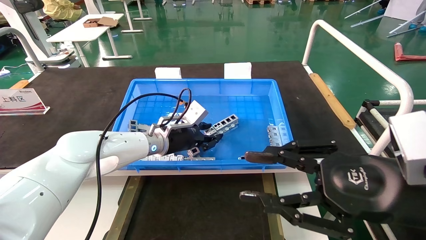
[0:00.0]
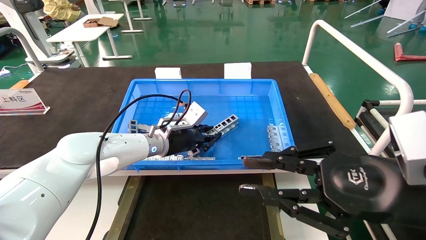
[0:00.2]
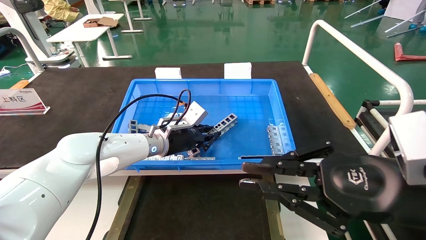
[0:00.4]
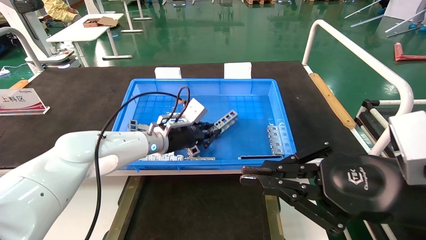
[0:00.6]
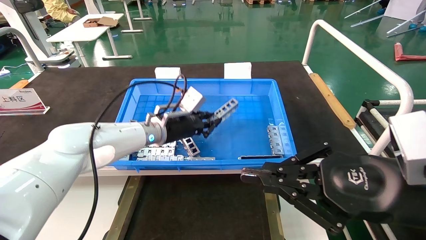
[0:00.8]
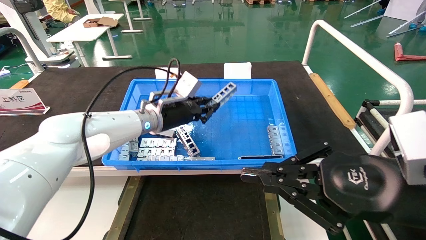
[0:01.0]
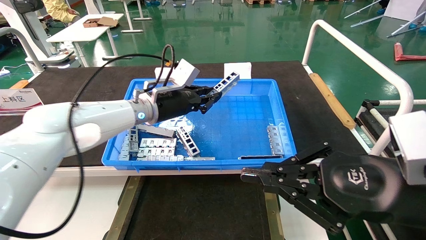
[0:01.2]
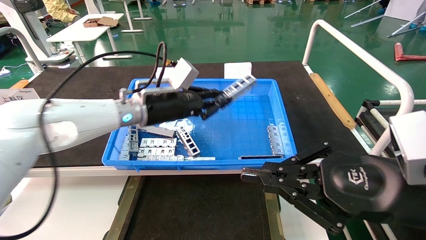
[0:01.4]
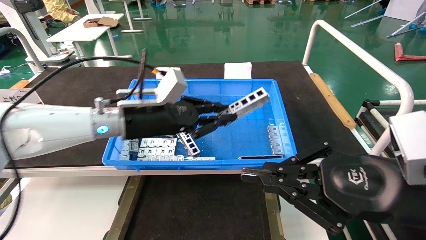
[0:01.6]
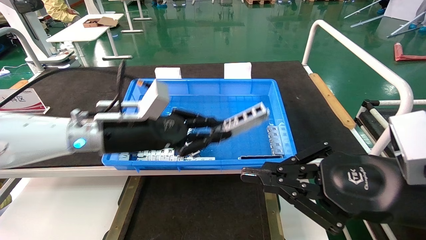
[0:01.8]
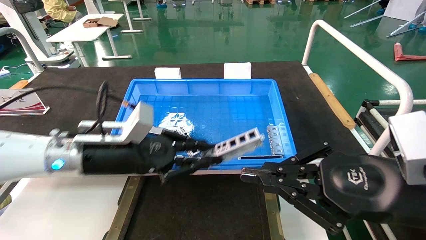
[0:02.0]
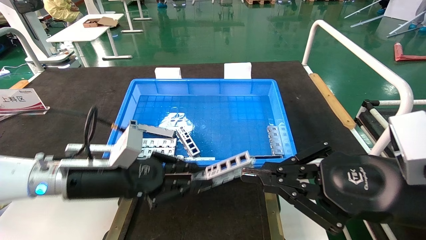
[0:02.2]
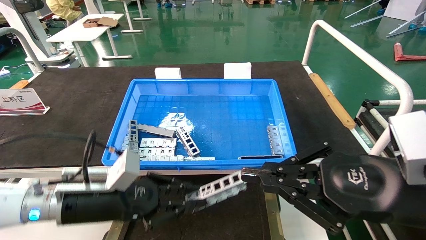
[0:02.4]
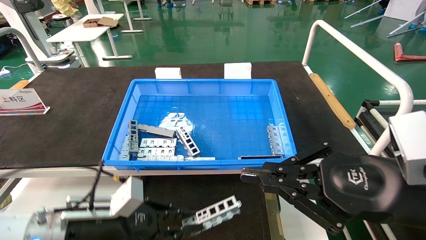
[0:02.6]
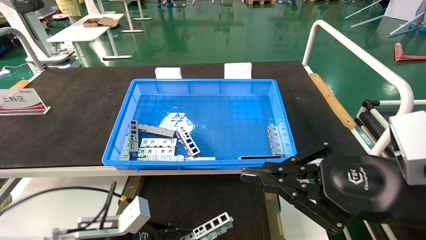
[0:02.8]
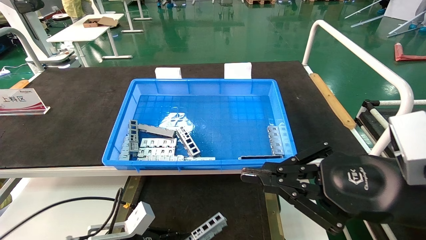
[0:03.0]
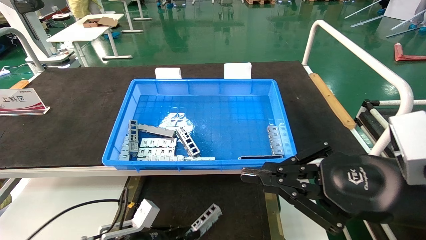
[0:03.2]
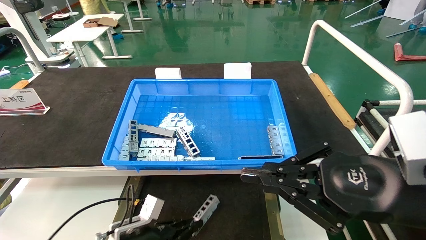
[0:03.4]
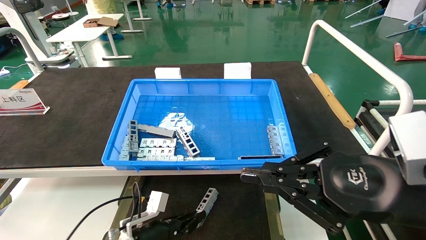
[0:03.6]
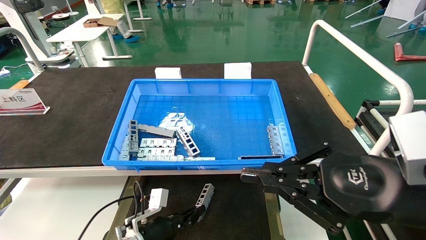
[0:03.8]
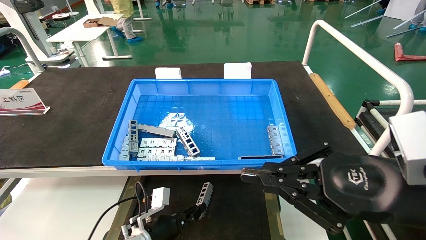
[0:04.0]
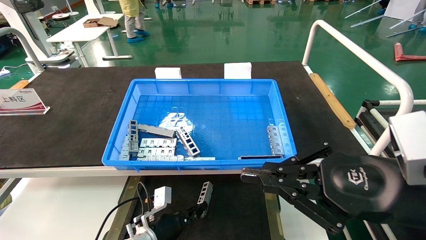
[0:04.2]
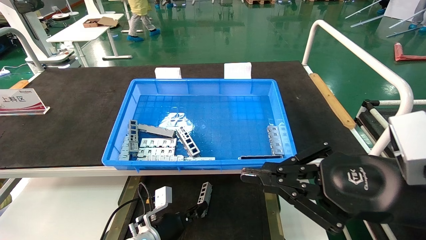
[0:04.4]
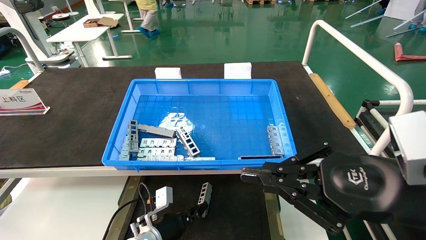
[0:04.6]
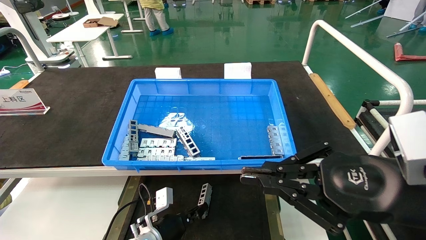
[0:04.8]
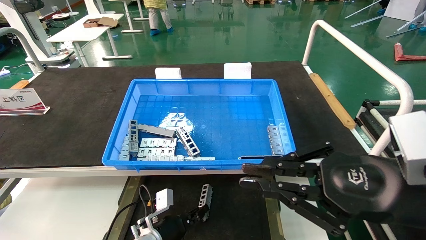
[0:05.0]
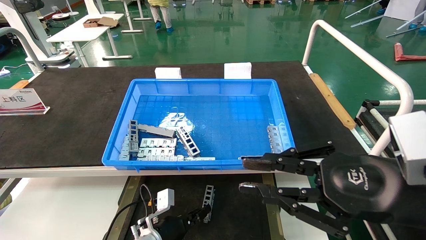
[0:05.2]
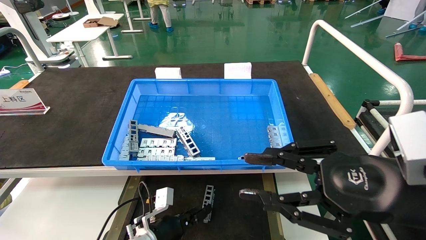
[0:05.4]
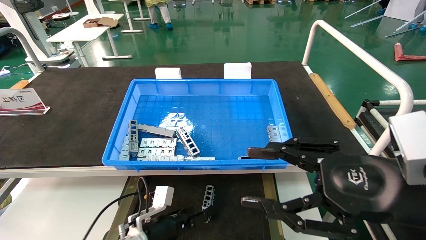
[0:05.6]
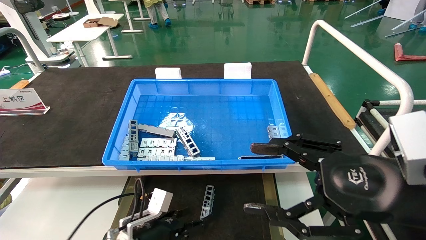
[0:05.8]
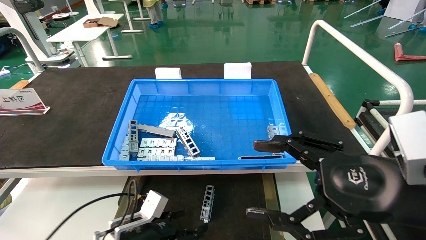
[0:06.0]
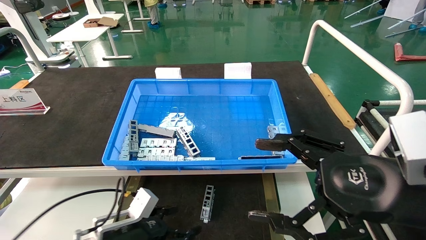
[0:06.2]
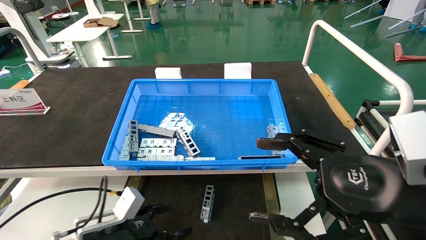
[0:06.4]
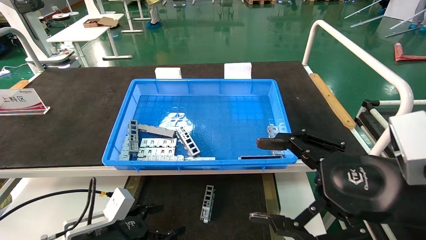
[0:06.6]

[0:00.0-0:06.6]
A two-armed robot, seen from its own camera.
Task of the whole recording: Grasp the part with one hand and place it on the black container.
Step, 0:00.4 to 0:05.0: Place the front USB bracket into the box.
0:00.0 to 0:01.6: The left gripper goes roughly 10 cm backward and upward, and closes its fingers. The right gripper closes up.
0:01.6 to 0:03.2: The left gripper moves downward, approximately 25 cm.
0:03.2 to 0:05.0: The left gripper shifts roughly 10 cm to the right and forward.
0:05.0 to 0:06.6: The right gripper opens up. Meanwhile the left gripper moves to the left, backward and upward, some 15 cm, and opens.
